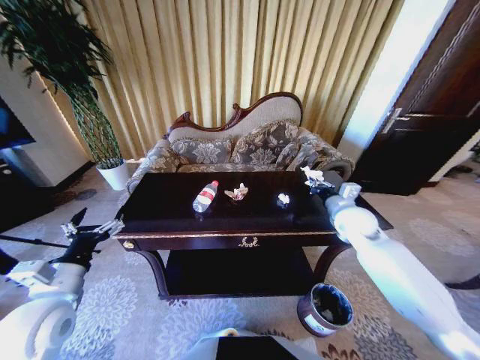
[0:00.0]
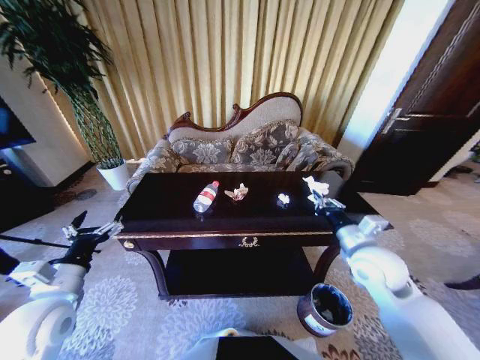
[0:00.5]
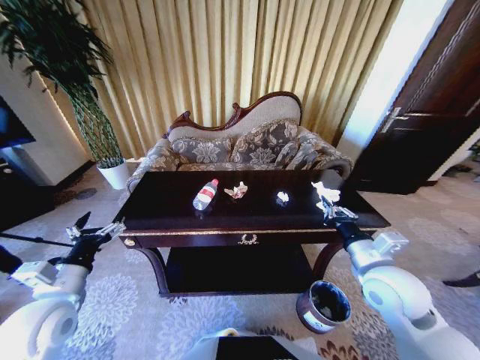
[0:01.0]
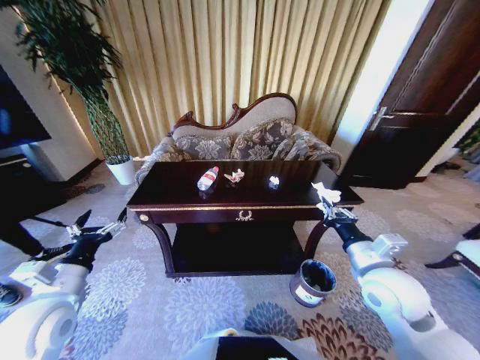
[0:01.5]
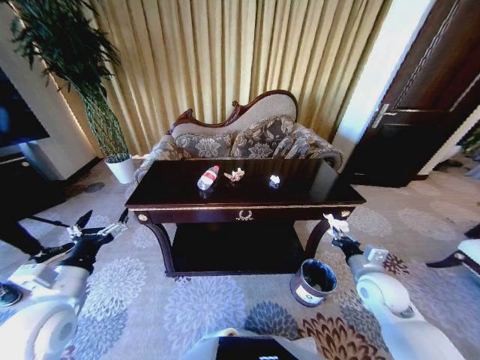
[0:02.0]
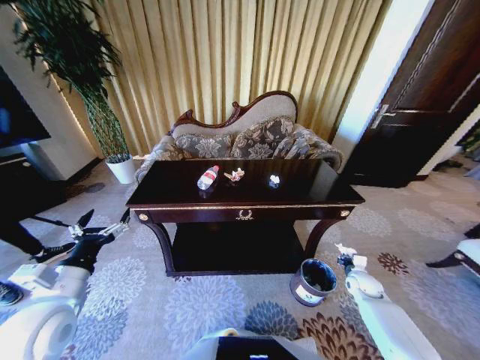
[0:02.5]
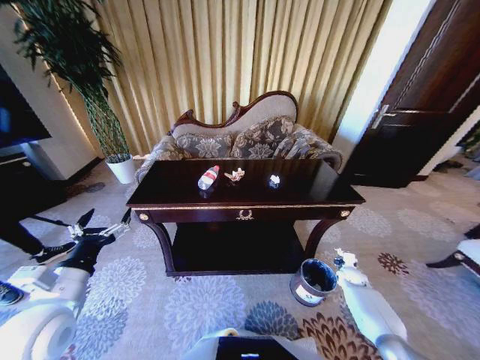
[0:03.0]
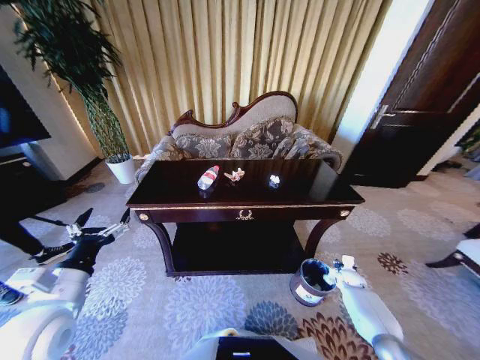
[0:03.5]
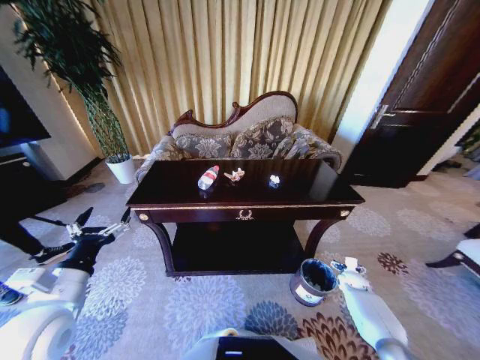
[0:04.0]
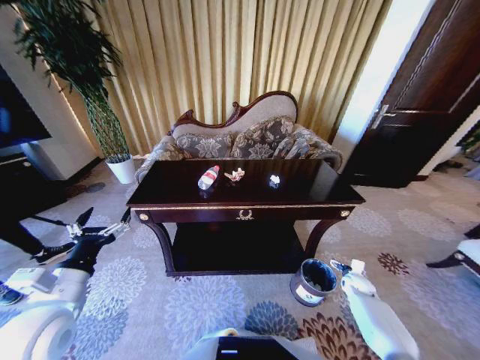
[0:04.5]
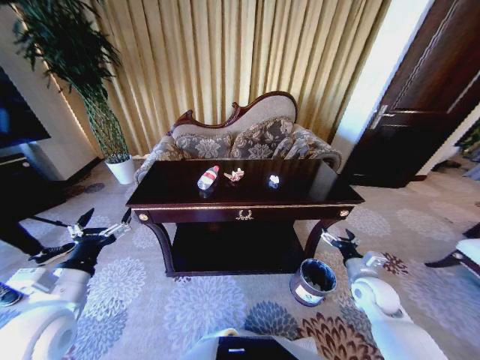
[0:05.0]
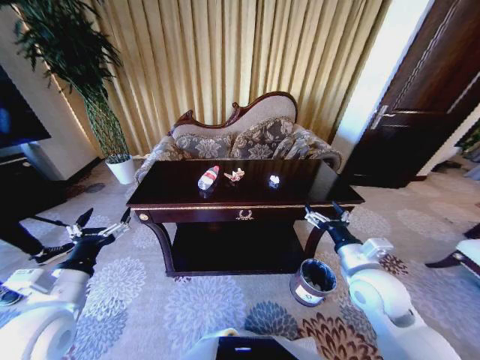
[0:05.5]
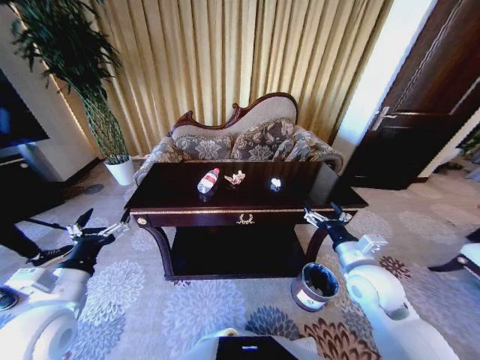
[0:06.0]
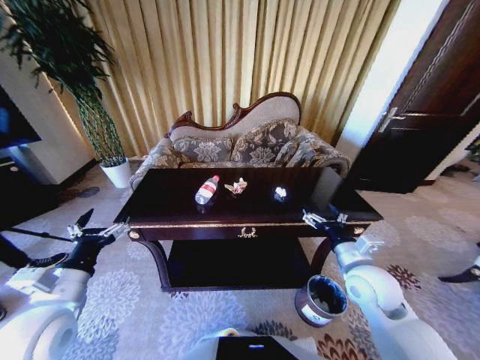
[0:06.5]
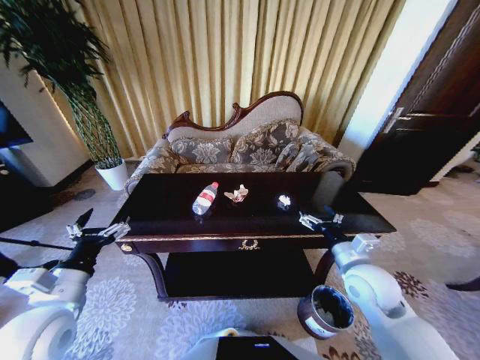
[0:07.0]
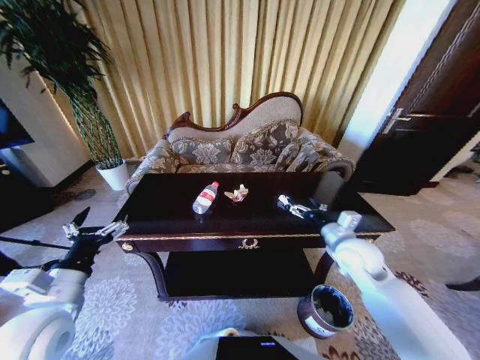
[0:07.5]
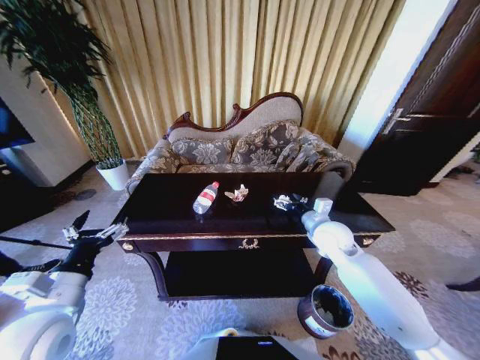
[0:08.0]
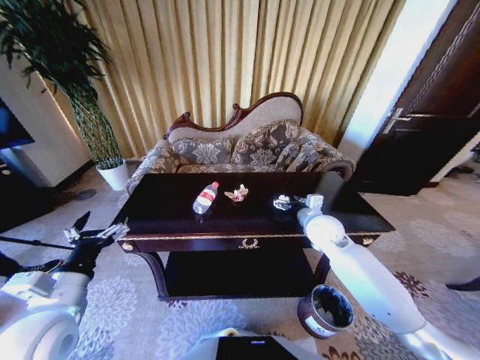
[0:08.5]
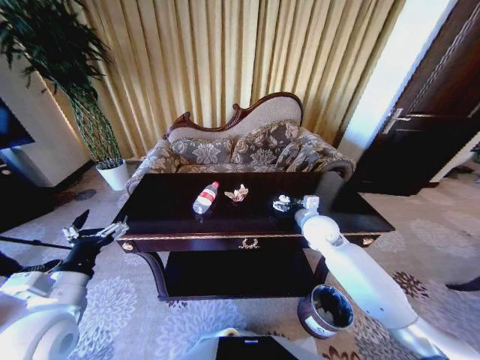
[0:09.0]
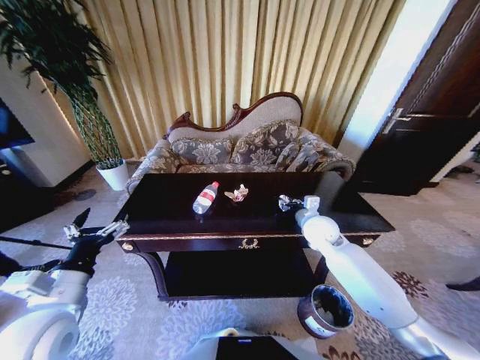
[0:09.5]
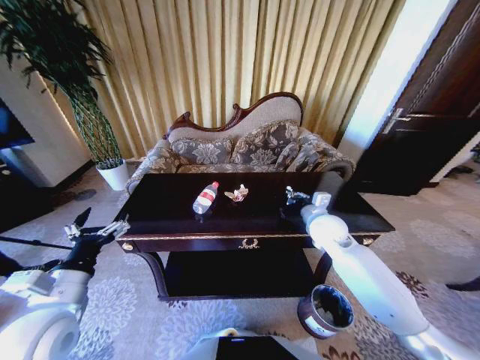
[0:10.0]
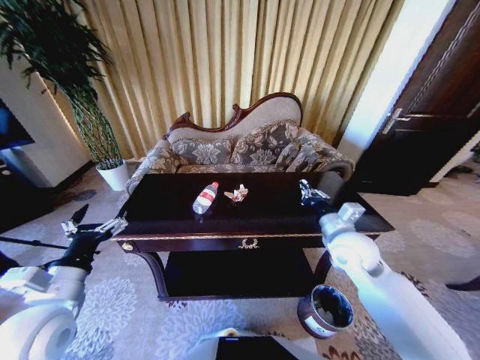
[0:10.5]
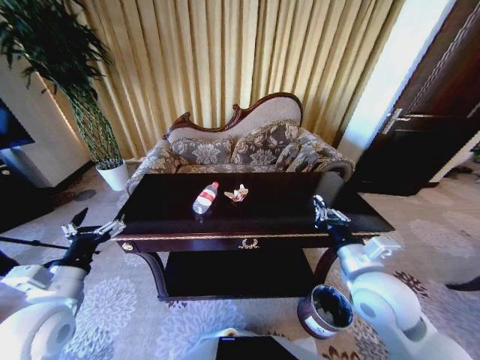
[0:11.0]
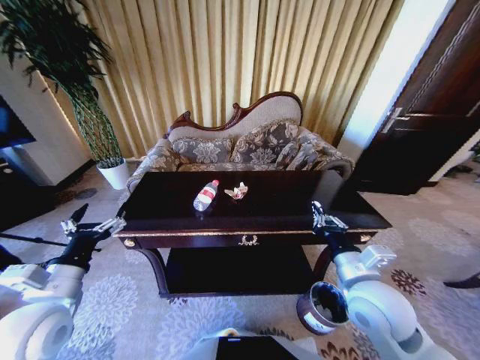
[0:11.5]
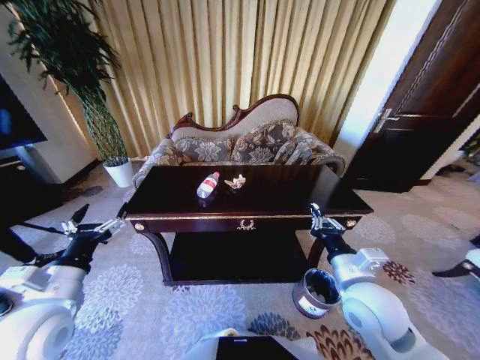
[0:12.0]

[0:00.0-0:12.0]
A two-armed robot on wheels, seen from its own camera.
Task of the whole recording: Move to the front of the table and place the trash on the table into the trash bin.
0:00.0 to 0:02.0: The right gripper travels backward and downward by about 20 cm.
0:02.0 to 0:04.0: The right gripper is displaced downward and to the right by about 25 cm, and opens.
0:04.0 to 0:06.0: The right gripper travels upward and to the left by about 35 cm.
0:06.0 to 0:08.0: The right gripper heads forward, covering some 15 cm.
0:08.0 to 0:10.0: The right gripper closes.
0:10.0 to 0:12.0: The right gripper heads backward, covering about 20 cm.

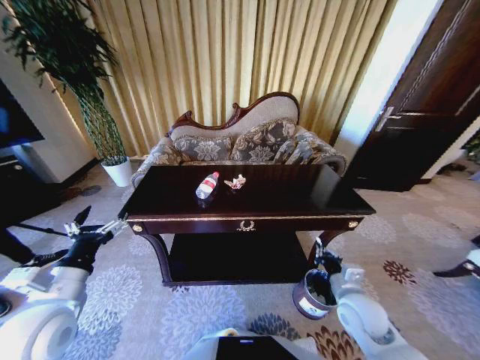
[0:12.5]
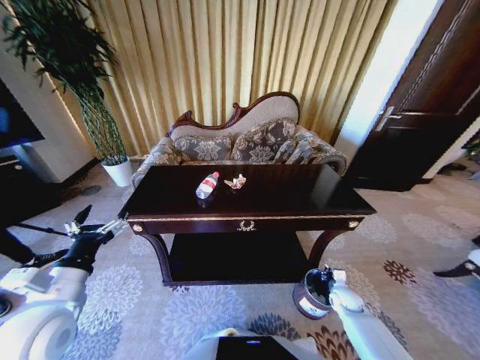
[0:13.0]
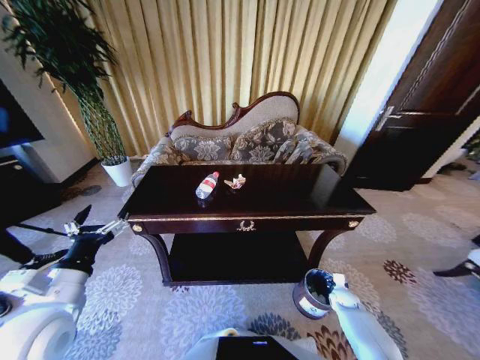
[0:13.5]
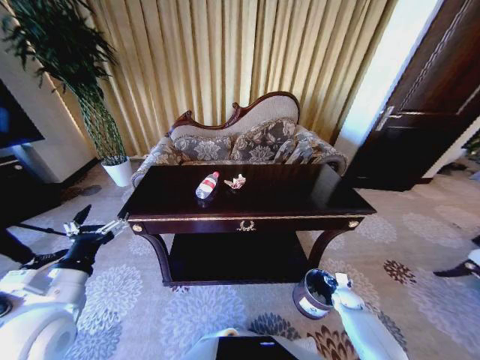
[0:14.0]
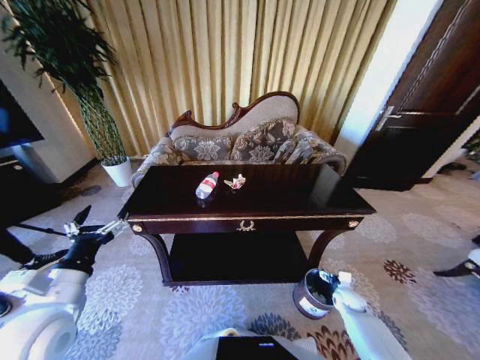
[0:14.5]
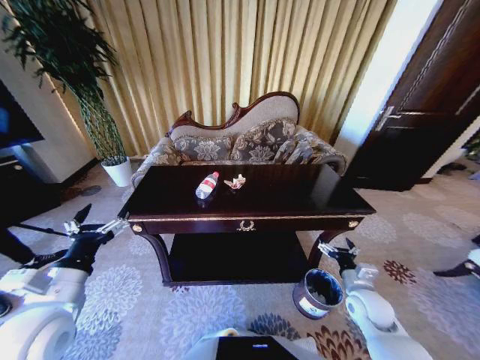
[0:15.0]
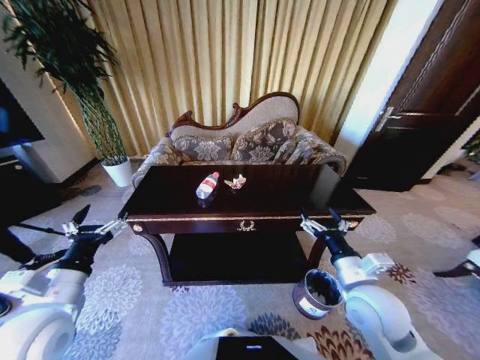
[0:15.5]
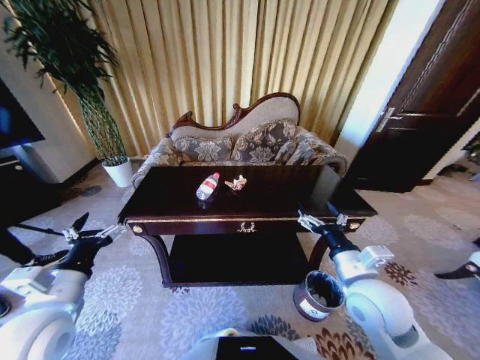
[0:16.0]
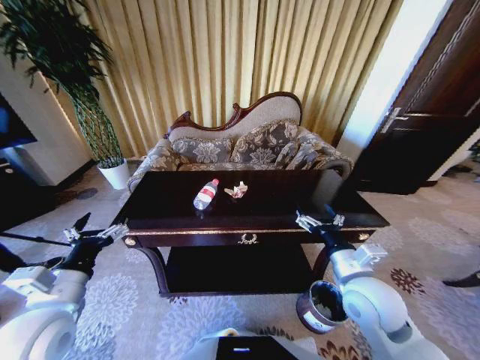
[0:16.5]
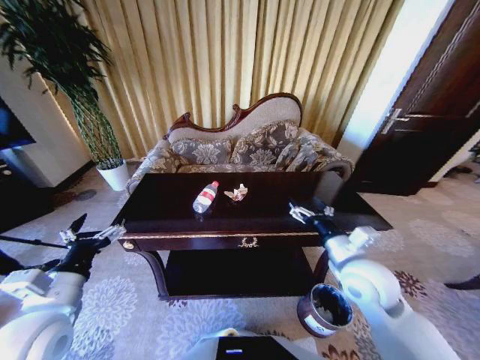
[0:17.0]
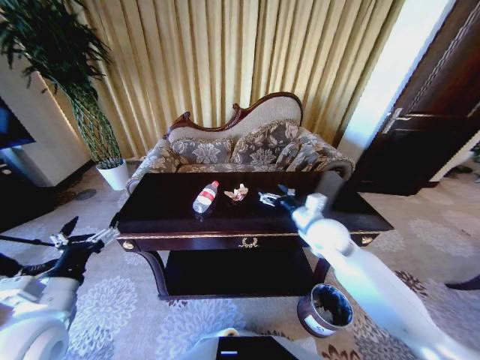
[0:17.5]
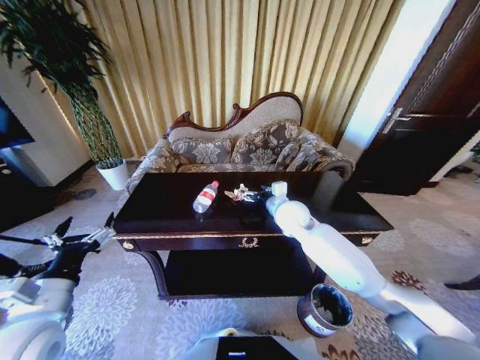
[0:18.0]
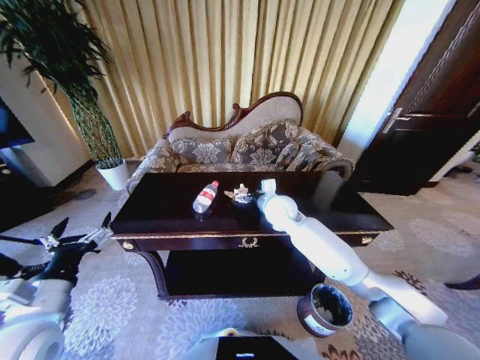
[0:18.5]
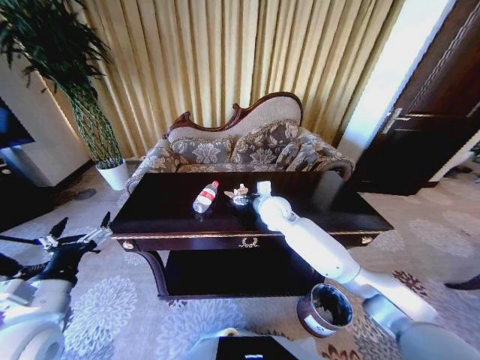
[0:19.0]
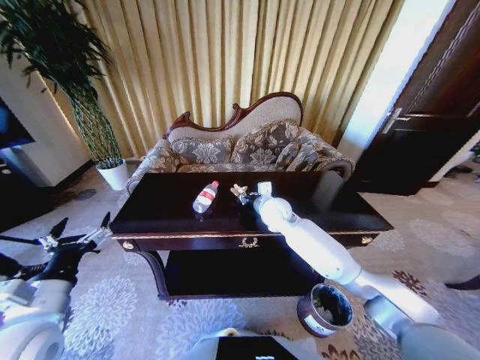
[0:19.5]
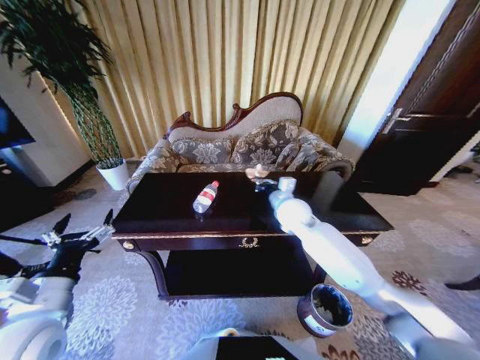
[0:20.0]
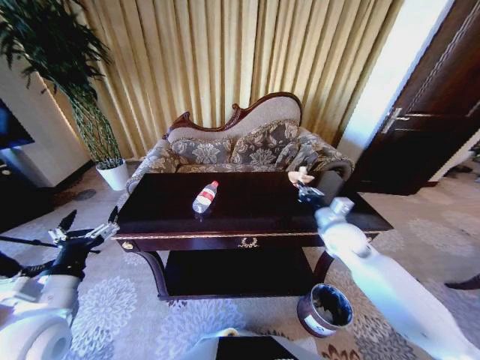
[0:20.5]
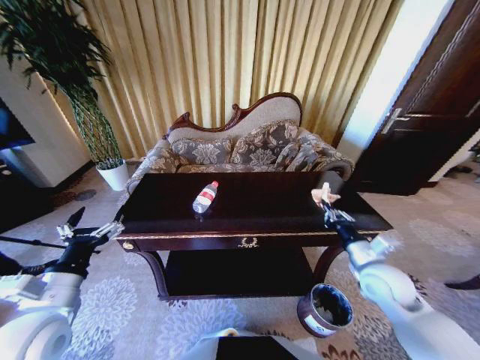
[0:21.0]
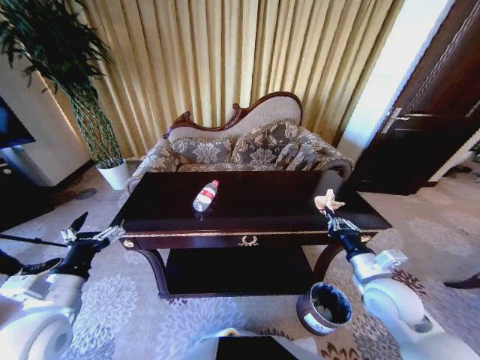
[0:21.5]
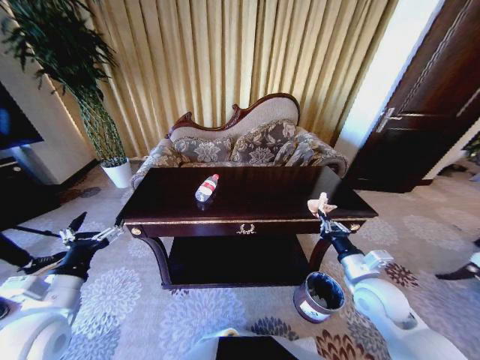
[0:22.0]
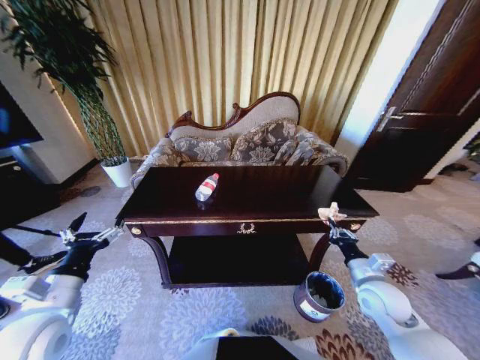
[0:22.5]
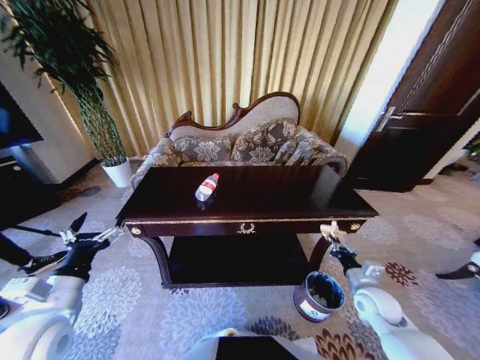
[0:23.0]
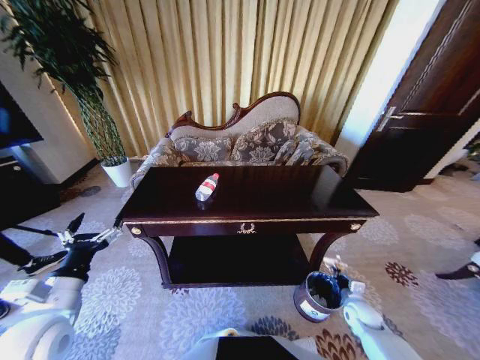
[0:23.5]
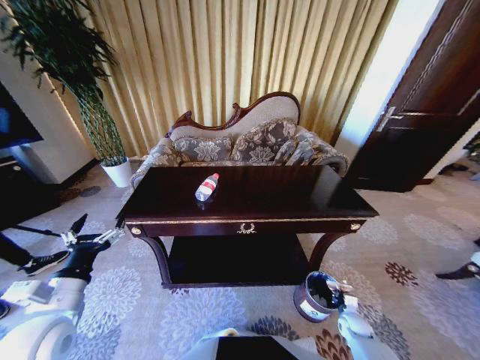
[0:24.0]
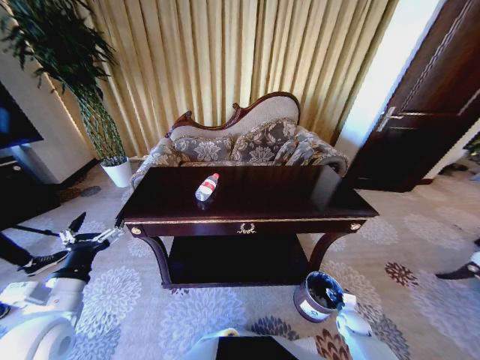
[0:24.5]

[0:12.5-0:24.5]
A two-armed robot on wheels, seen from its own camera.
Task of the whole recording: Move to the front of the table and place the trash on the table into the trash bin.
0:12.5 to 0:14.5: The right gripper goes some 25 cm downward and to the right, and opens up.
0:14.5 to 0:16.5: The right gripper is displaced upward and to the left by approximately 35 cm.
0:16.5 to 0:18.5: The right gripper is displaced forward and to the left by approximately 25 cm.
0:18.5 to 0:20.5: The right gripper moves to the right and backward, about 20 cm, and closes.
0:20.5 to 0:22.5: The right gripper is displaced backward, downward and to the right by roughly 15 cm.
0:22.5 to 0:24.5: The right gripper heads downward, covering about 25 cm, and opens up.

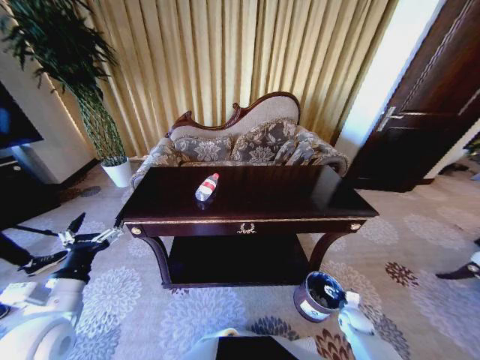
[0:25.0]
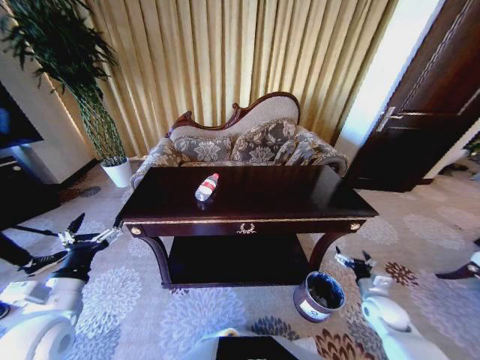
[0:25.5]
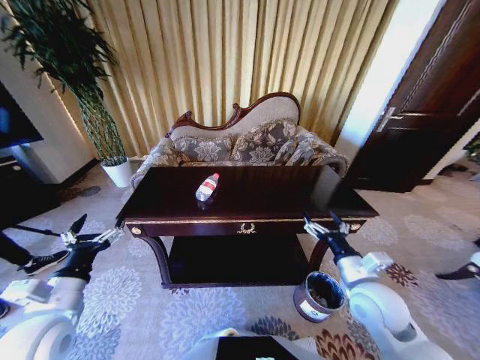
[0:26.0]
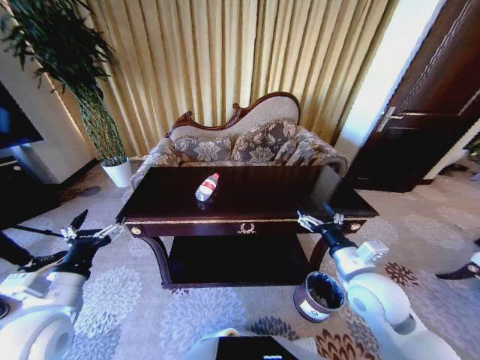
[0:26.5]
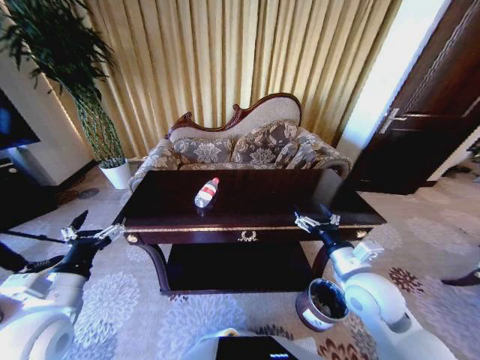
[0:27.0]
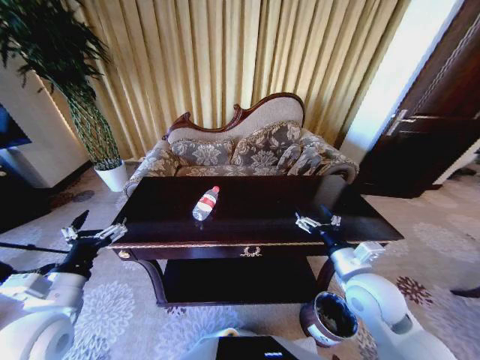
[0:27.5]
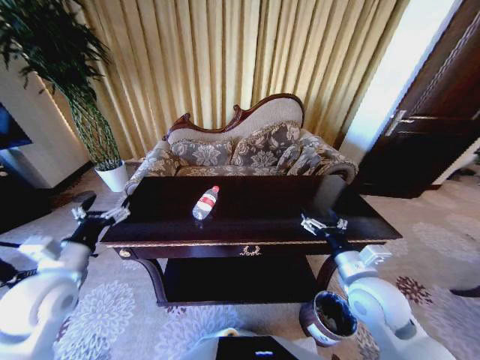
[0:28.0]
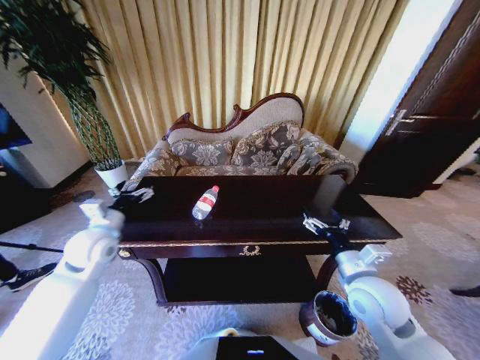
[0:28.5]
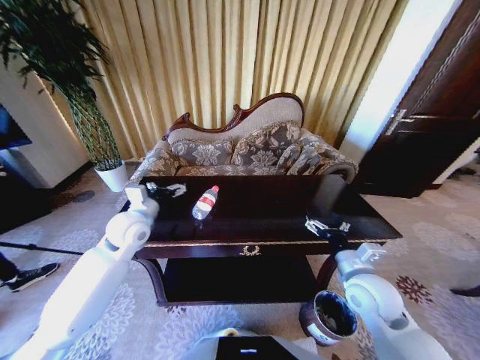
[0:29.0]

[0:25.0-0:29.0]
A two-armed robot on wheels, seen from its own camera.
Task of the whole recording: Move to the front of the table and place the trash on the table into the trash bin.
0:25.0 to 0:27.0: The right gripper is displaced upward and to the left by about 40 cm.
0:27.0 to 0:29.0: The left gripper shifts roughly 20 cm forward.
